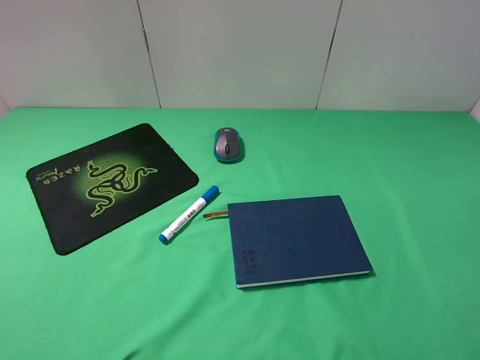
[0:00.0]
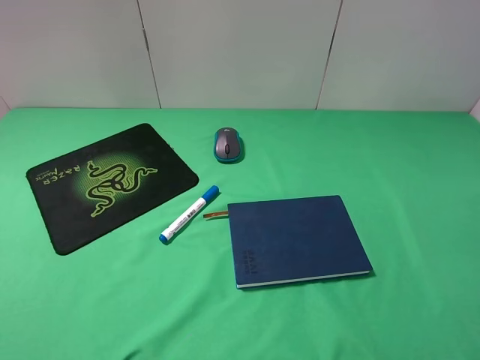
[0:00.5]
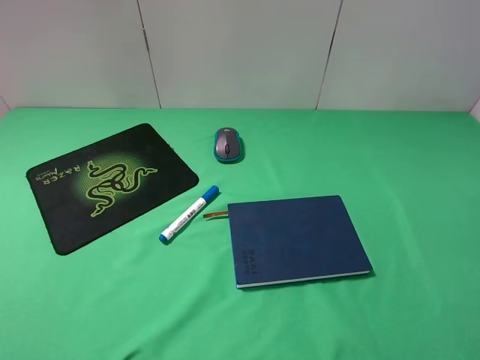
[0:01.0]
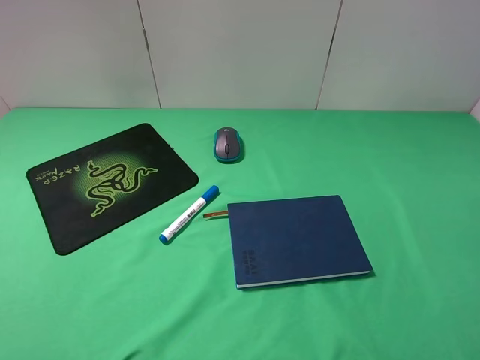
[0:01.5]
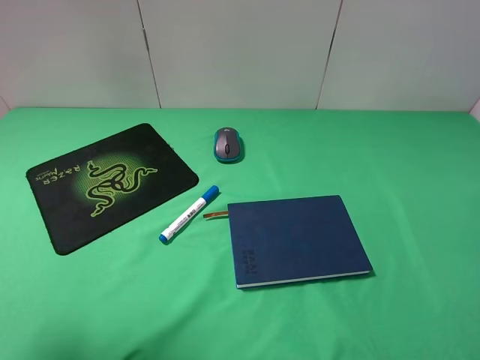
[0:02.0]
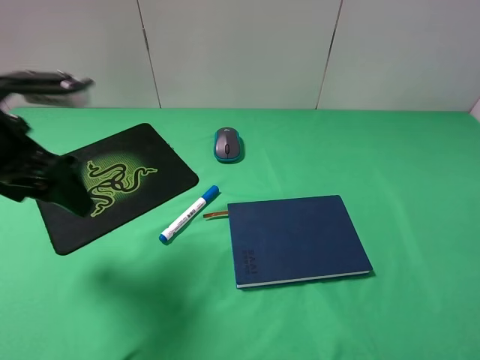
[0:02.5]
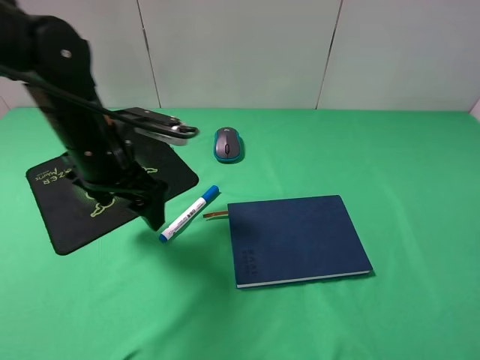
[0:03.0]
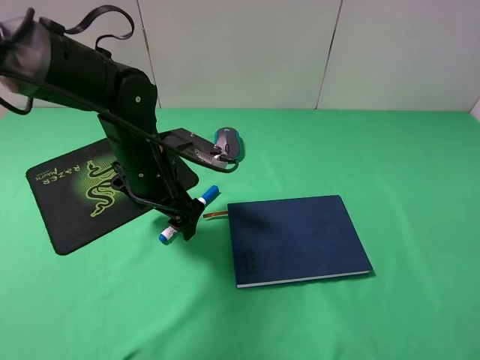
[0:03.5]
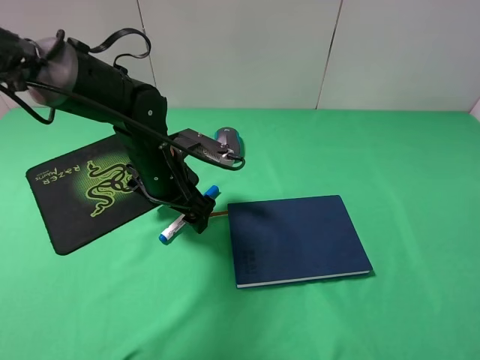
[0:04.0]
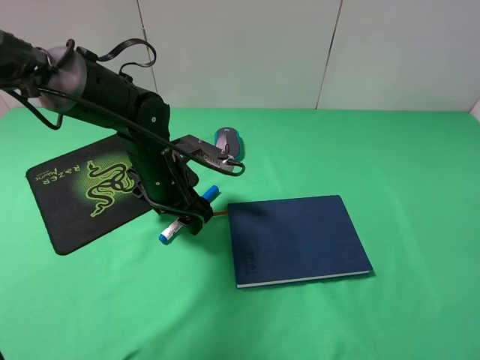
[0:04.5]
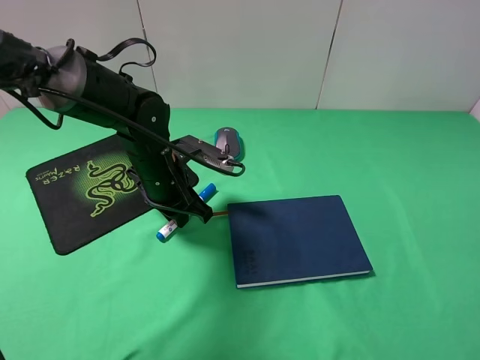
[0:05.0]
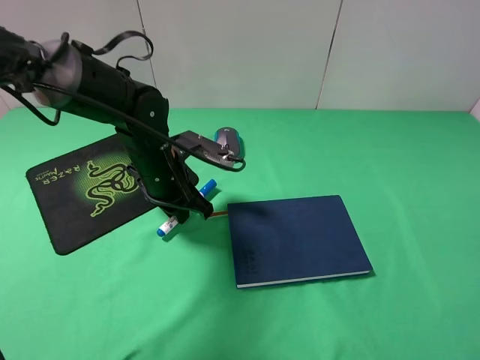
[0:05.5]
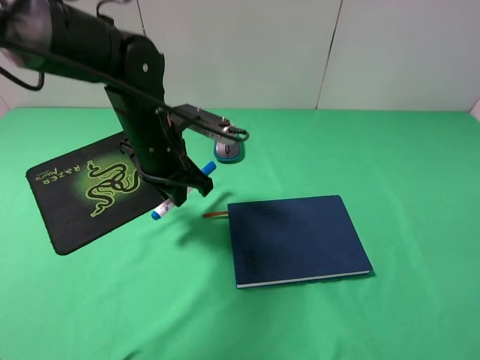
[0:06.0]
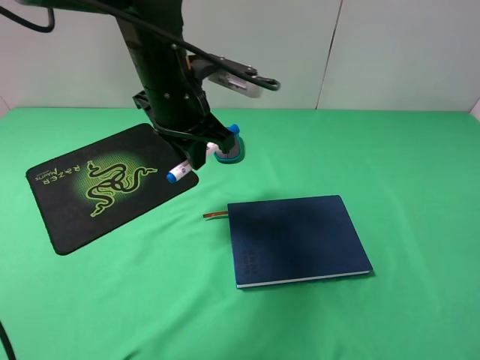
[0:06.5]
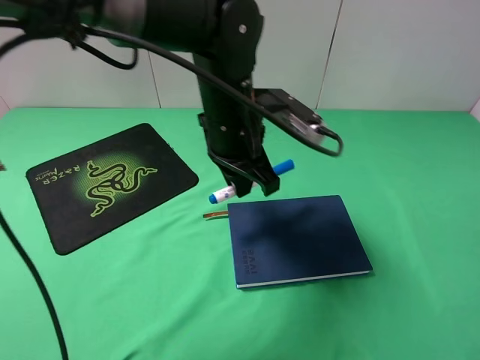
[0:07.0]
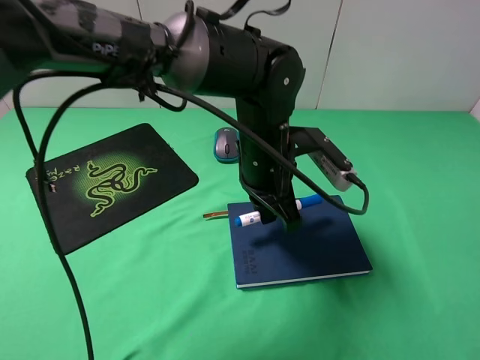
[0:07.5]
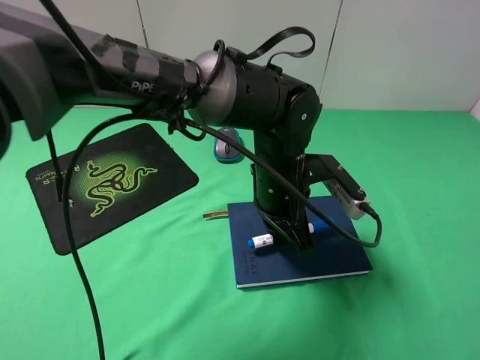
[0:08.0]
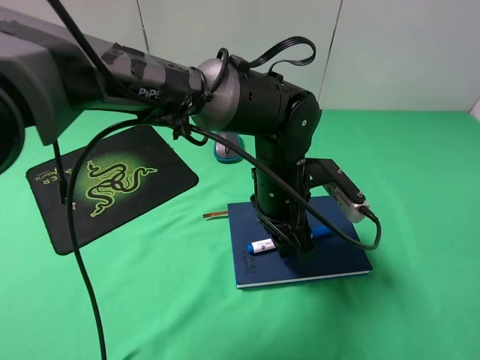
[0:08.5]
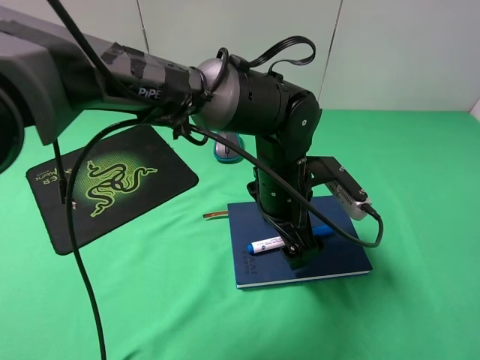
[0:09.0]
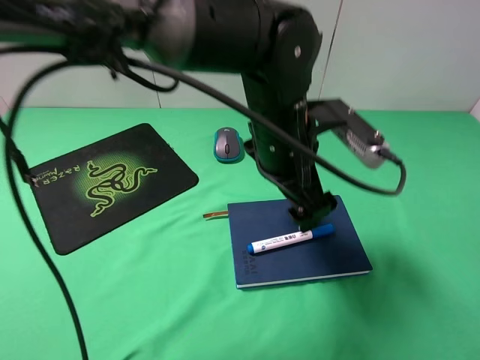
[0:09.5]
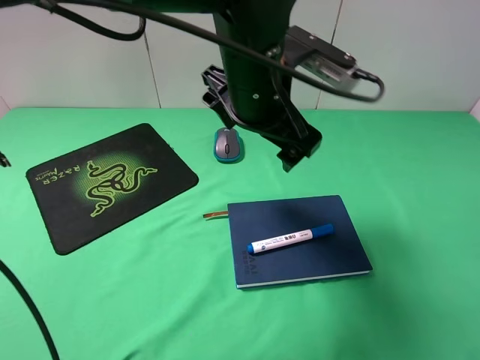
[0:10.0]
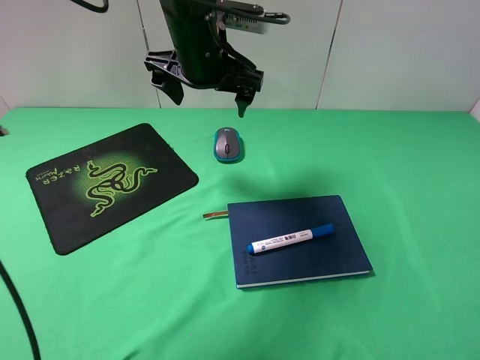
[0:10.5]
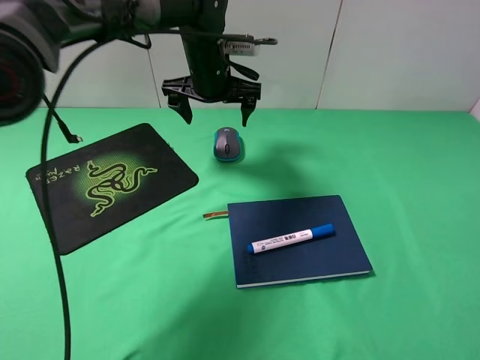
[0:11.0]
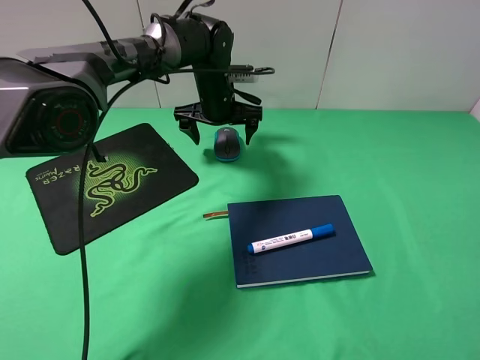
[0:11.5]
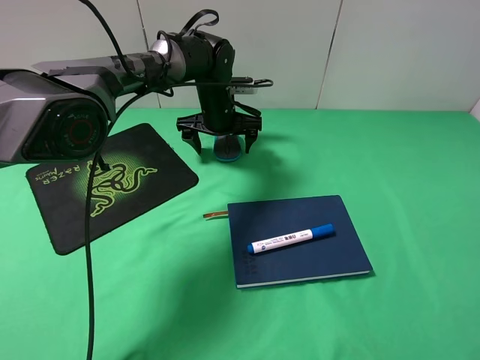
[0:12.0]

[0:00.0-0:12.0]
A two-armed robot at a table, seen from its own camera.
Step, 0:00.0 to 0:04.5: Grasp the marker with the left gripper.
Step, 0:05.0 to 0:08.5: Place the marker on the notebook with the left gripper.
0:00.0 to 0:02.0: The left gripper moves forward, roughly 15 cm.
0:02.0 to 0:04.0: The left gripper moves downward, to the right and forward, about 35 cm.
0:04.0 to 0:06.0: The left gripper heads upward, covering about 5 cm, and closes.
0:06.0 to 0:08.0: The left gripper heads to the right, covering some 15 cm.
0:08.0 to 0:10.0: The left gripper is displaced upward by roughly 15 cm, and opens its fingers.
0:10.0 to 0:12.0: The left gripper heads forward and downward, covering about 25 cm.

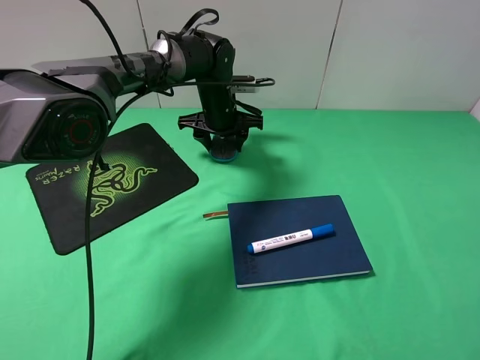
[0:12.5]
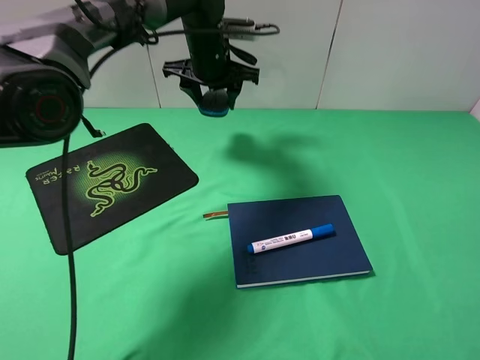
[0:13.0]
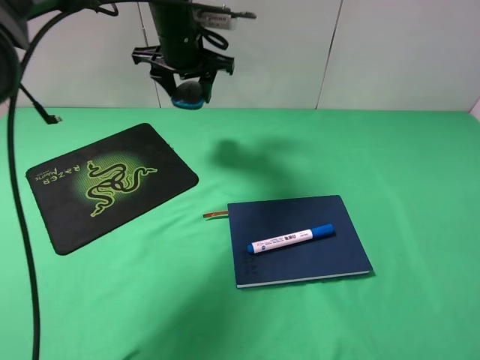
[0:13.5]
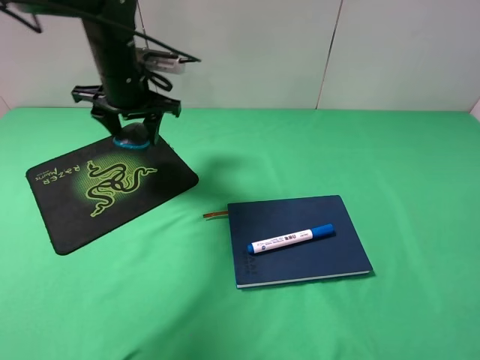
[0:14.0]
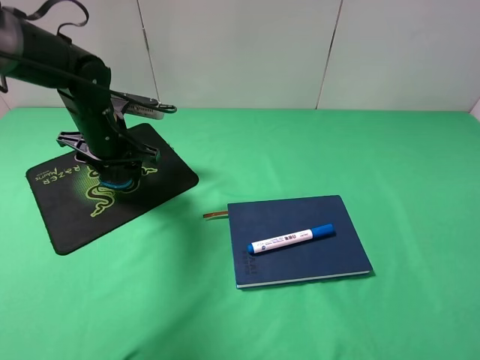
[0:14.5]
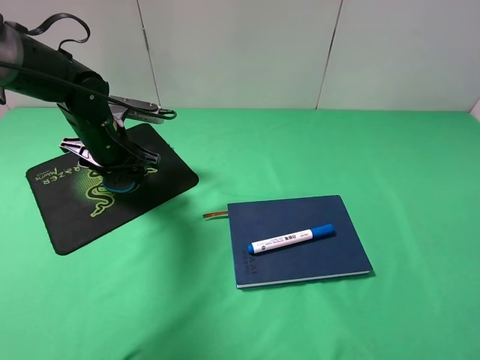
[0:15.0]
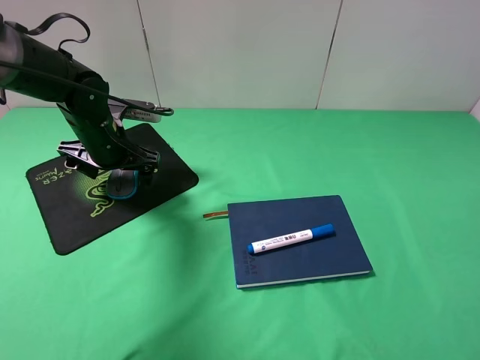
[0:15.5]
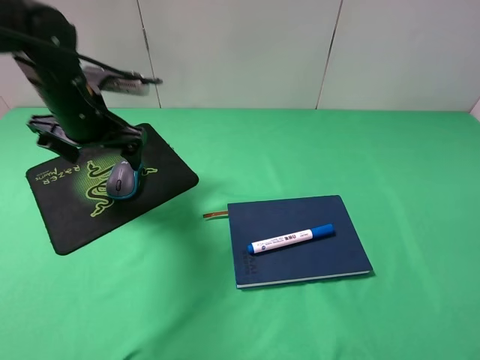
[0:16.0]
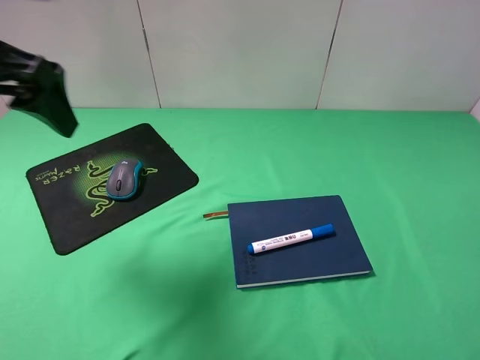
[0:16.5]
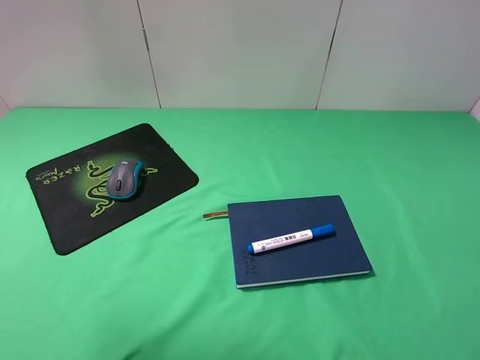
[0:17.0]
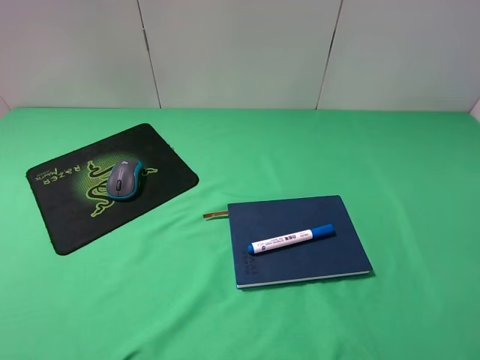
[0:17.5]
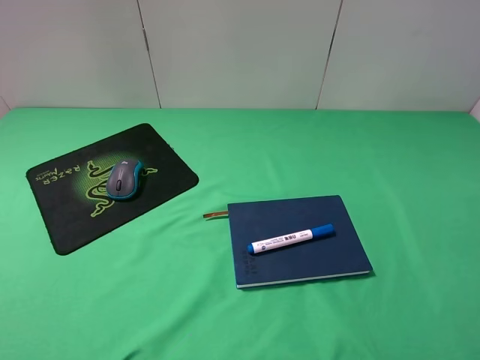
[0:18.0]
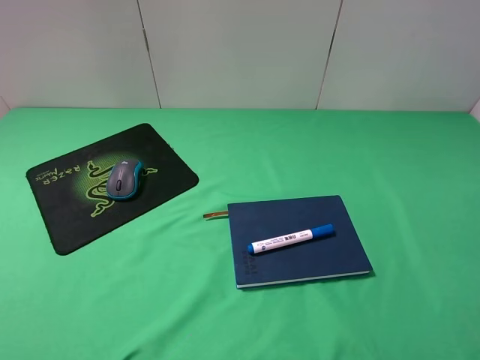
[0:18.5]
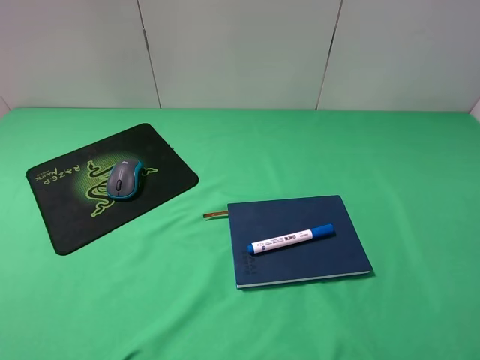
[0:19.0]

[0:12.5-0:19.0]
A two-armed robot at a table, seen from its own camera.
Step, 0:13.0 to 0:16.0: Place the mouse on the mouse pad with the left gripper.
0:12.5 to 0:14.5: The left gripper travels to the left and backward by roughly 20 cm.
0:14.5 to 0:17.0: The left gripper shifts approximately 35 cm upward and backward, and opens up.
